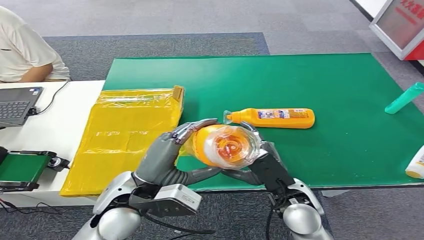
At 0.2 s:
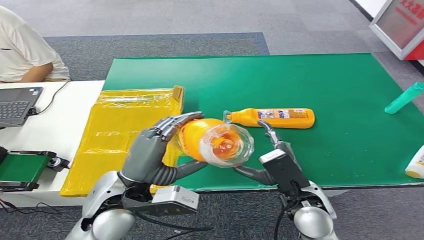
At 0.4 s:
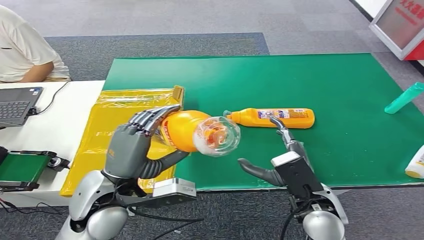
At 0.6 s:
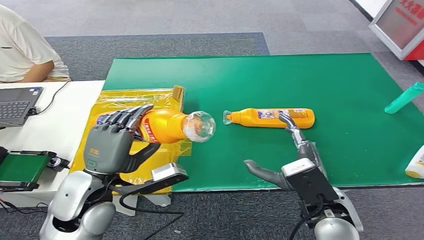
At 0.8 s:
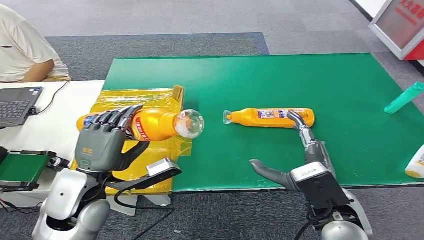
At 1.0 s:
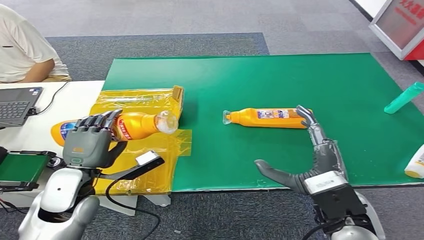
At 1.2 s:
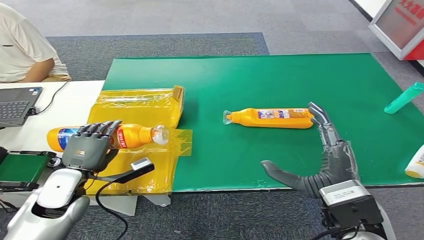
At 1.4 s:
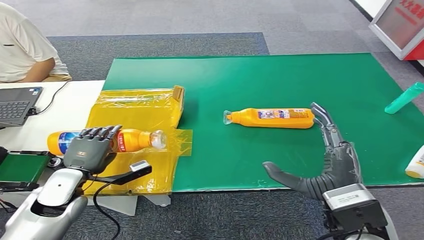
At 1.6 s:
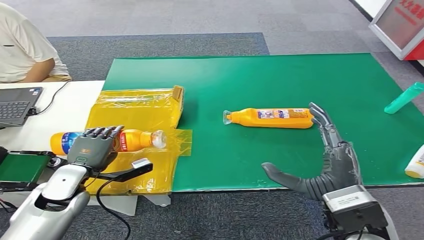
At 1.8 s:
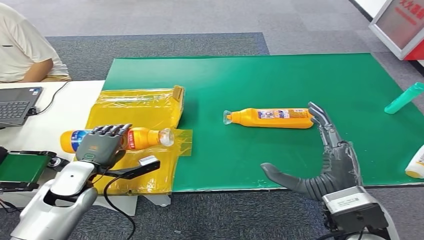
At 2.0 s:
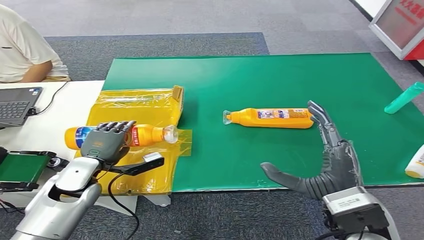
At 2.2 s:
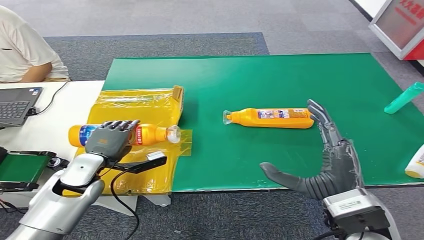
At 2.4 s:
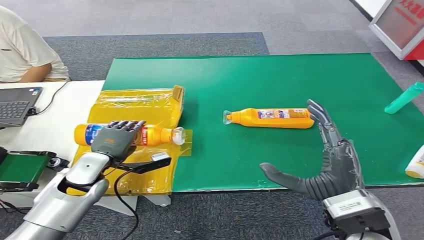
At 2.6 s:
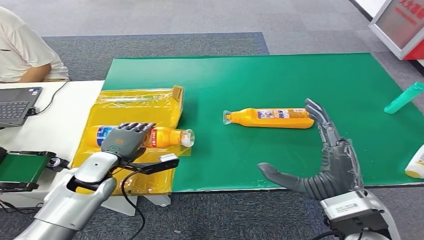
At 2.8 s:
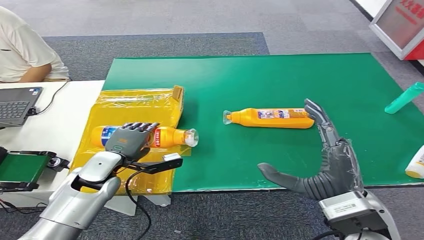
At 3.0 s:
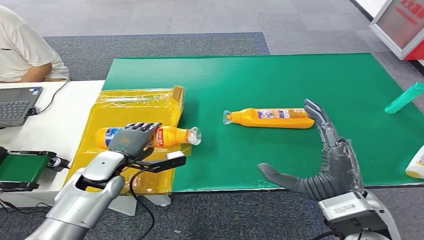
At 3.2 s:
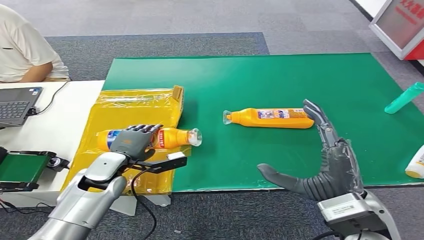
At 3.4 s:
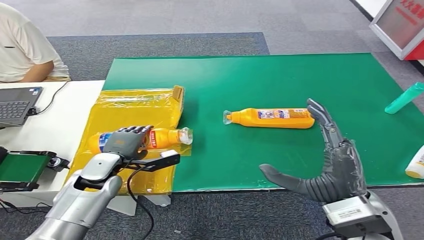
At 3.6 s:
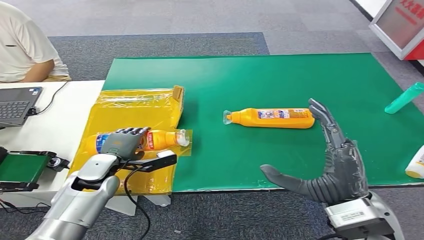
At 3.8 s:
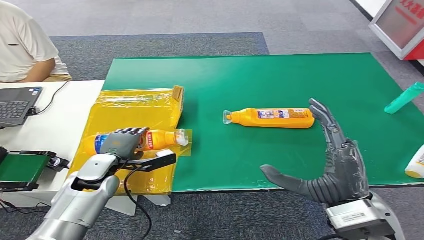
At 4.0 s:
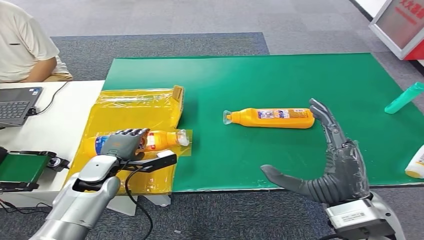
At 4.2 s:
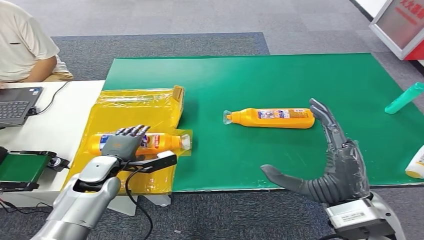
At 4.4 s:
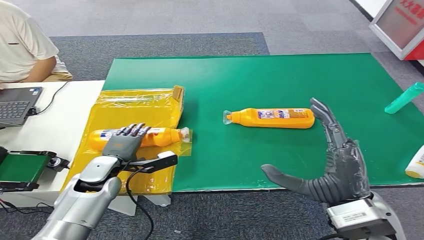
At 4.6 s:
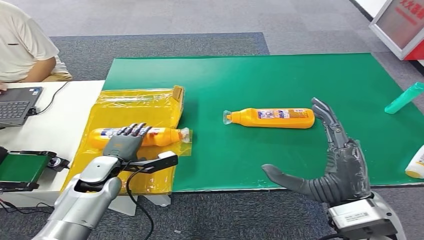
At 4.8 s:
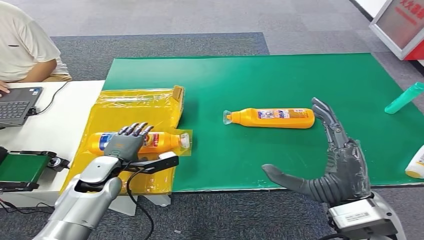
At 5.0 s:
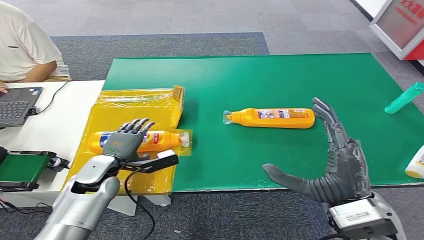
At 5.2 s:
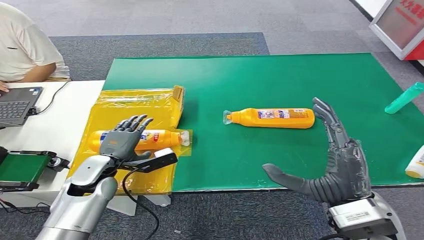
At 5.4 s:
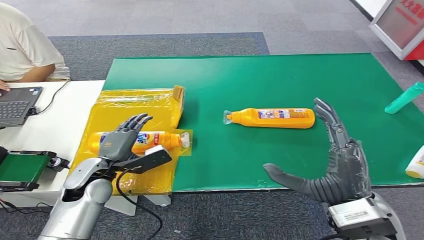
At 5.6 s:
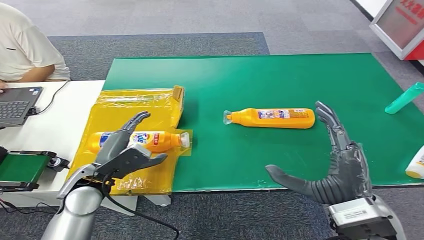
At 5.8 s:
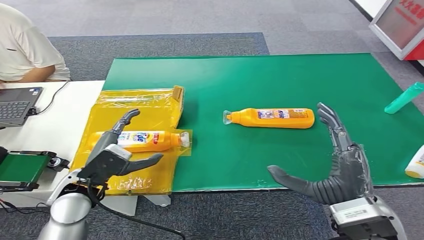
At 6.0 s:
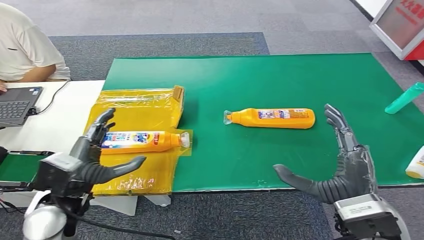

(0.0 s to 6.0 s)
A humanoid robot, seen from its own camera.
Step, 0.4 s - 6.0 s: Turn the bottle to the front side.
1.6 s - 3.0 s: The left hand is displaced to the right by about 5 cm.
3.0 s - 4.4 s: There are only small adjustments of the hands.
4.4 s - 6.0 s: The left hand travels backward and upward by some 15 cm.

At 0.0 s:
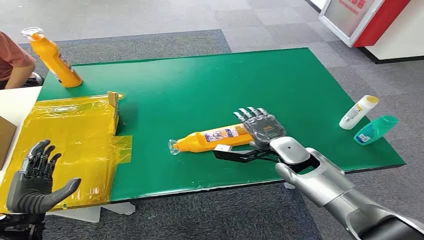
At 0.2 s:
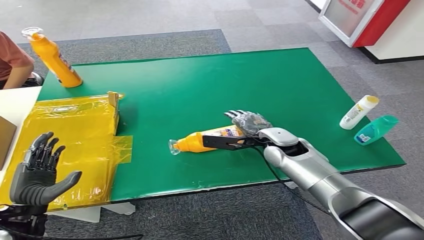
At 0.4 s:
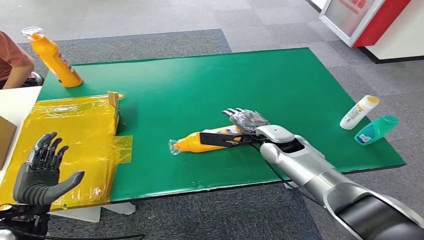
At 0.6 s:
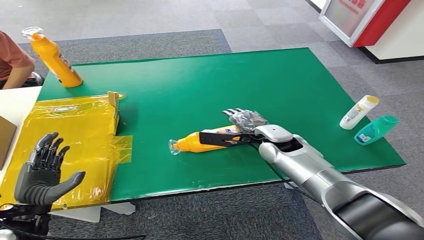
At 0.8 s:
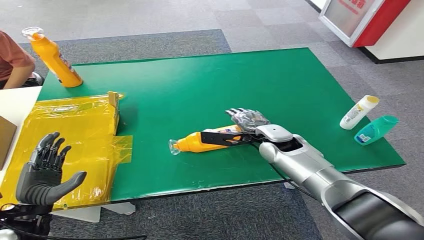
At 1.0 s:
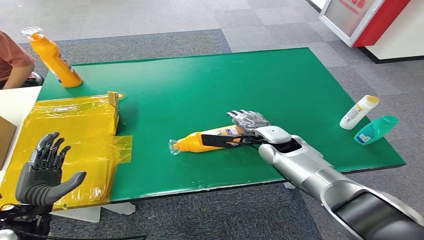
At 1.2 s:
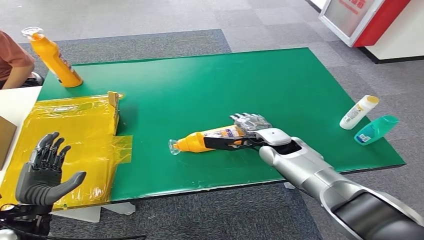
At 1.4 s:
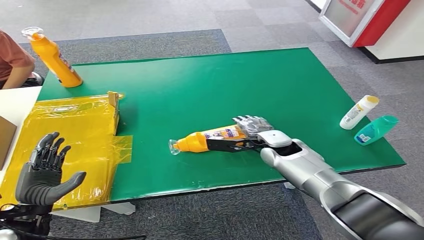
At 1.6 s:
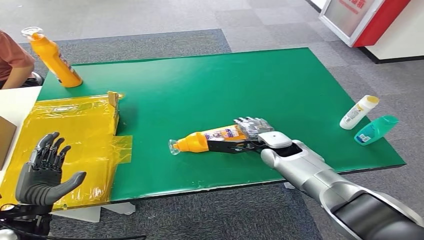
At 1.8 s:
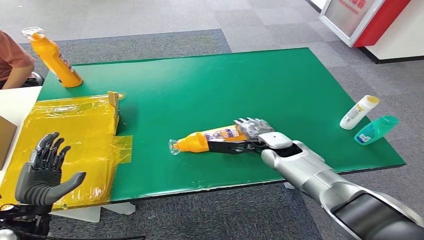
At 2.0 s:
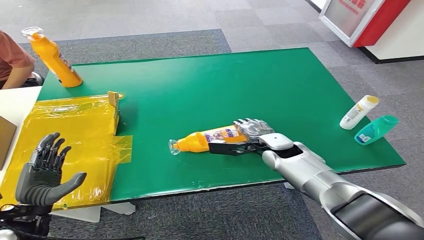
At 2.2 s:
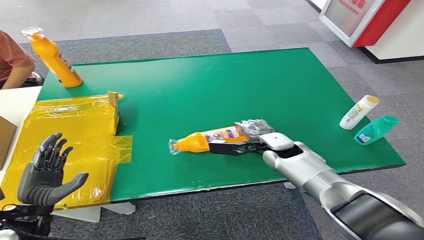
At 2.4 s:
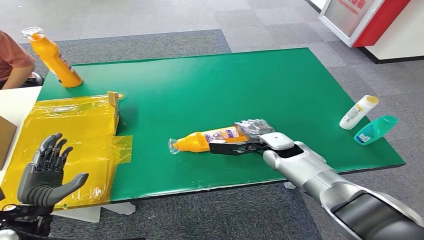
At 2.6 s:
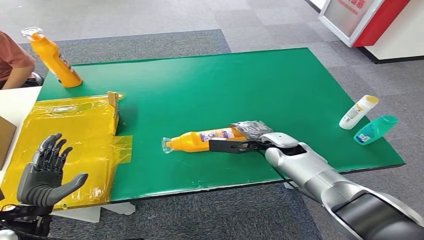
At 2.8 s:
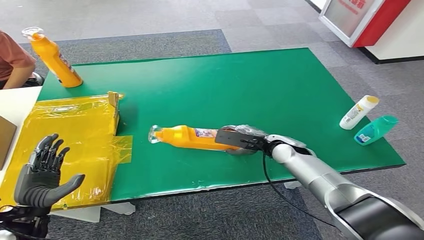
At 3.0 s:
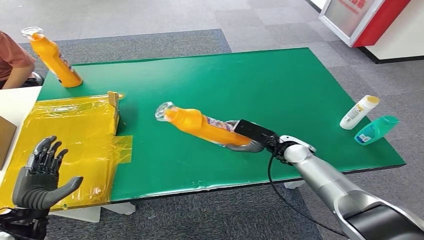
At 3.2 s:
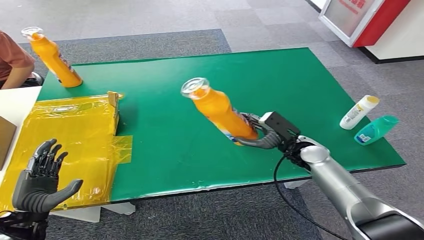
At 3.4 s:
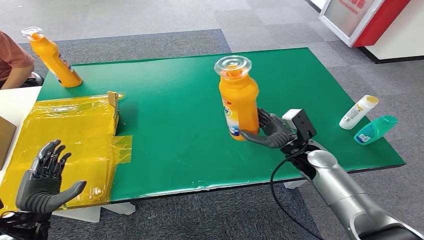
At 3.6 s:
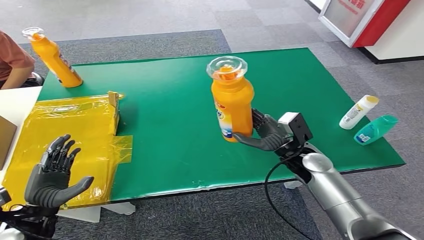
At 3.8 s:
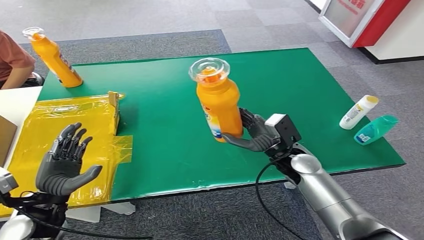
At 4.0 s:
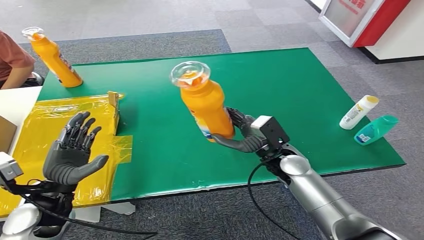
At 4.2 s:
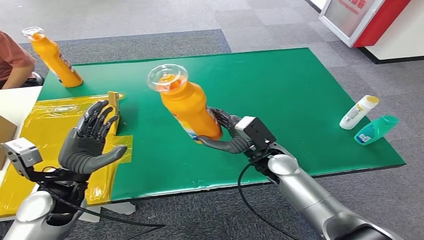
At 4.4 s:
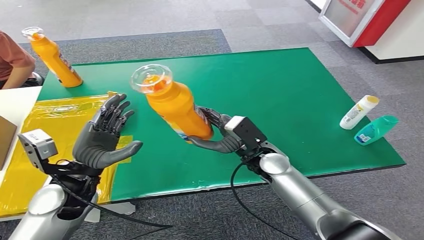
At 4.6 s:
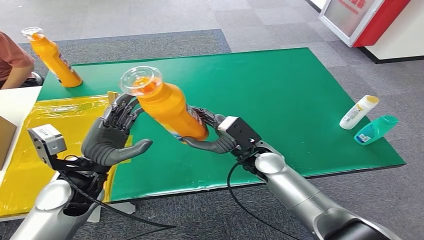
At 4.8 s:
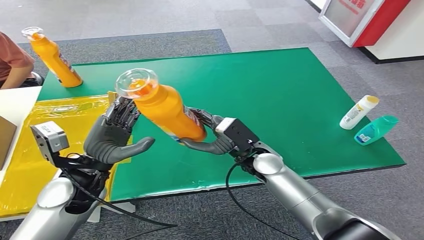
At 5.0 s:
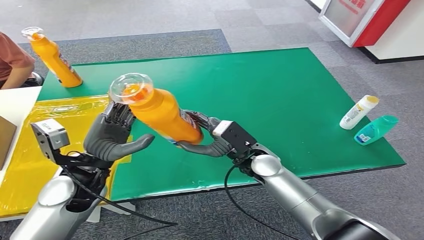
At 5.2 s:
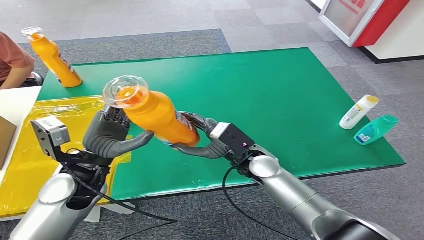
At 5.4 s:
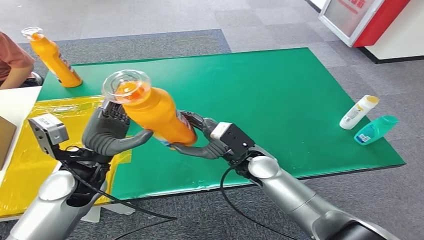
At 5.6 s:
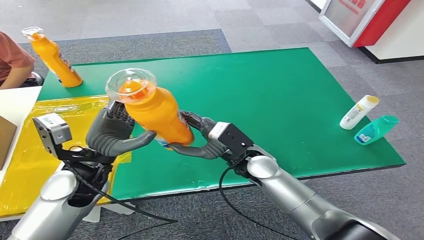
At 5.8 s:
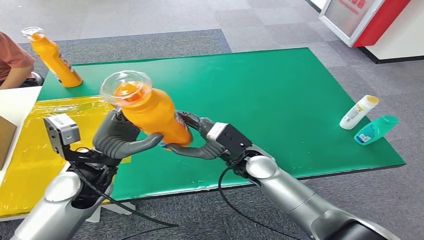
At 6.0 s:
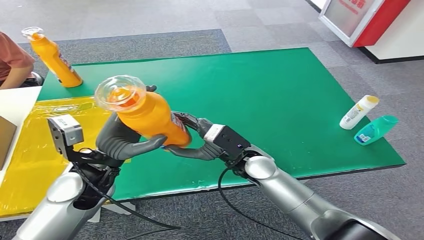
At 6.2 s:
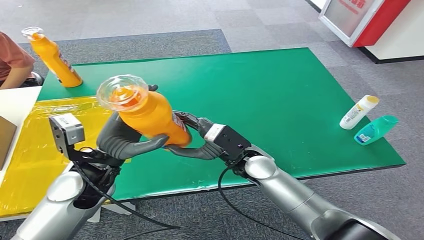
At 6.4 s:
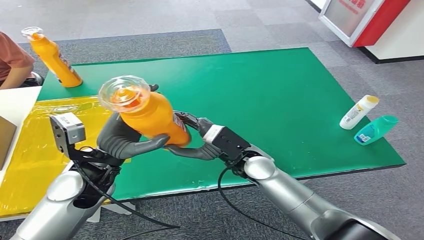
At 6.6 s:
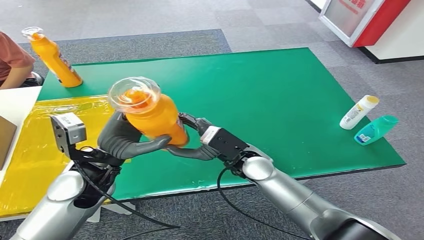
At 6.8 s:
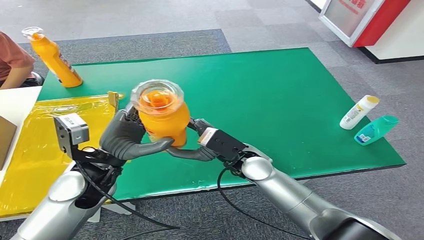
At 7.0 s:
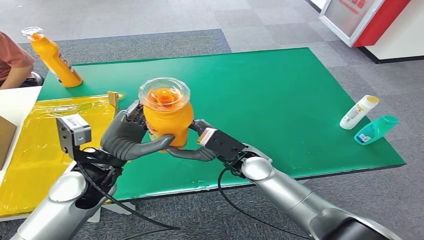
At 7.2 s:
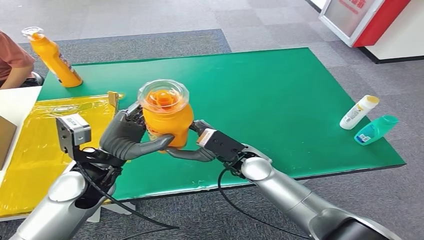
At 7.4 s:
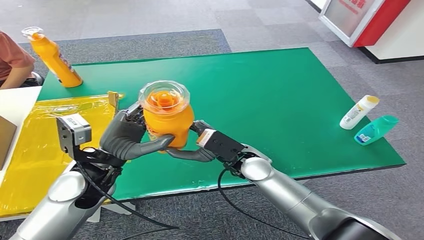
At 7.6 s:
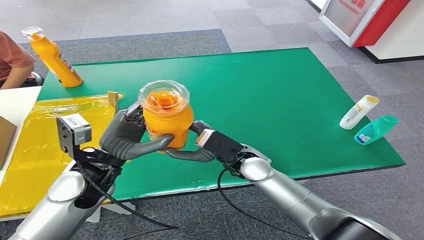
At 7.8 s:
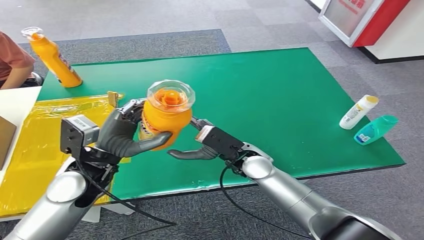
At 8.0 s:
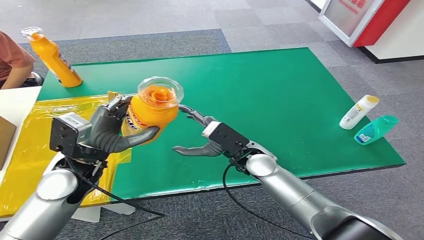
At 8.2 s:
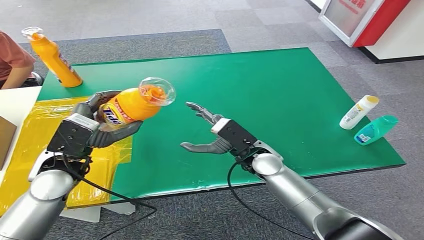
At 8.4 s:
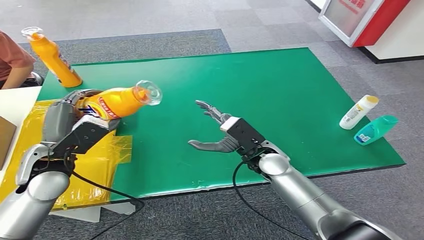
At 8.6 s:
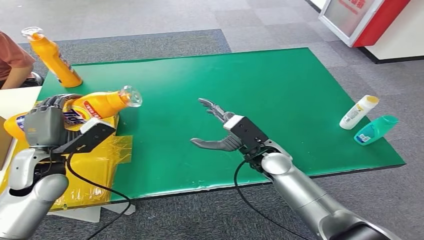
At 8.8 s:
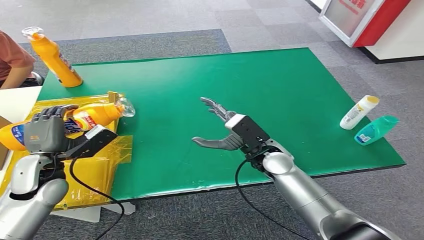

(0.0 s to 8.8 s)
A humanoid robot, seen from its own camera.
Step, 0.0 s - 3.6 s: Pick up the bottle from the table.
Step, 3.8 s - 8.8 s: Turn the bottle to the front side.
1.4 s - 3.0 s: The right hand goes approximately 5 cm to the right.
4.4 s - 7.4 s: There are only small adjustments of the hands.
